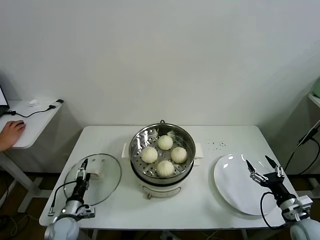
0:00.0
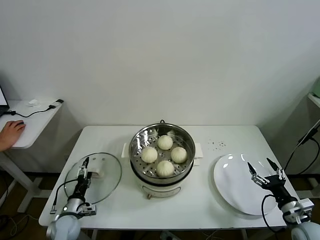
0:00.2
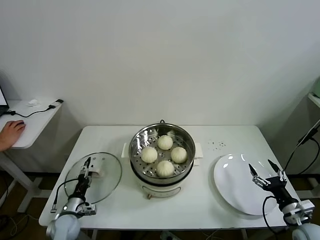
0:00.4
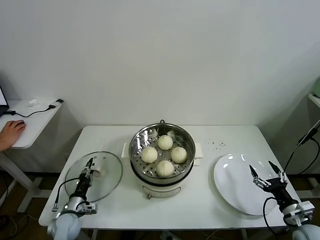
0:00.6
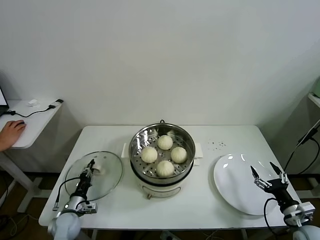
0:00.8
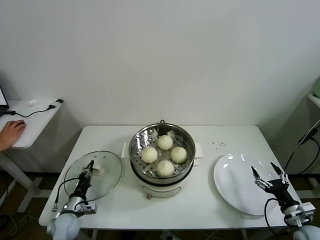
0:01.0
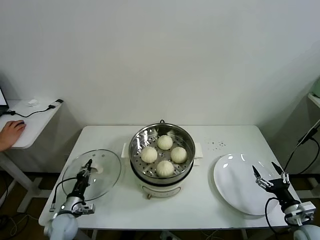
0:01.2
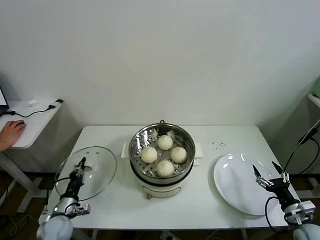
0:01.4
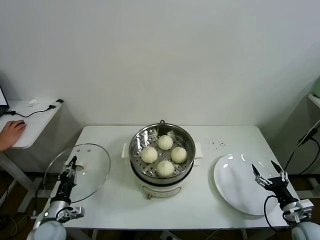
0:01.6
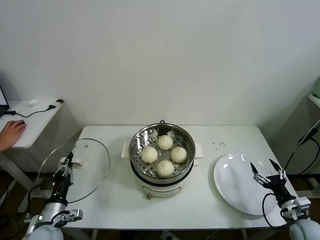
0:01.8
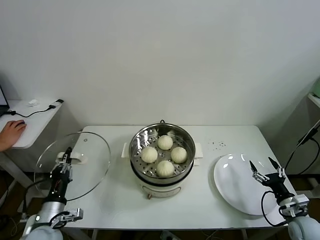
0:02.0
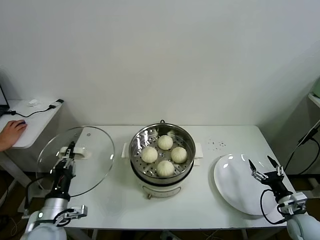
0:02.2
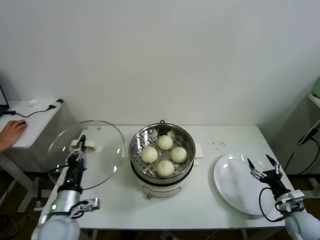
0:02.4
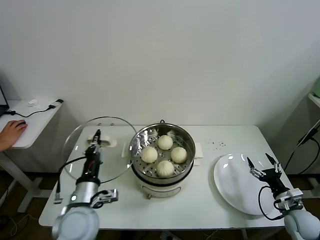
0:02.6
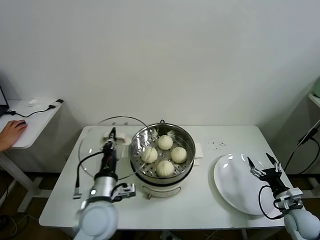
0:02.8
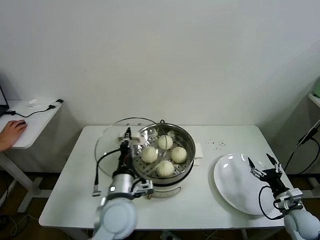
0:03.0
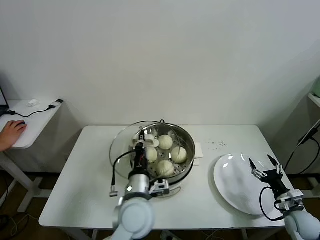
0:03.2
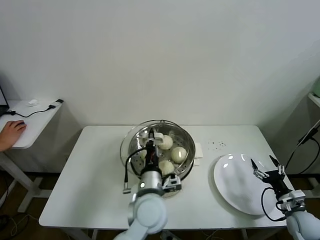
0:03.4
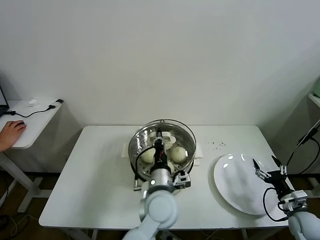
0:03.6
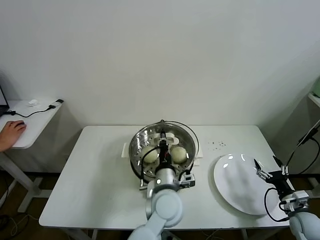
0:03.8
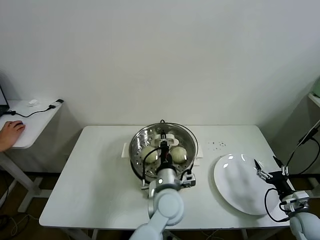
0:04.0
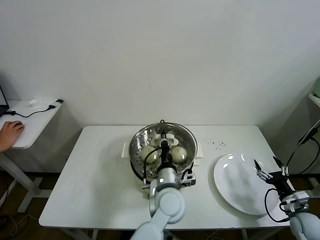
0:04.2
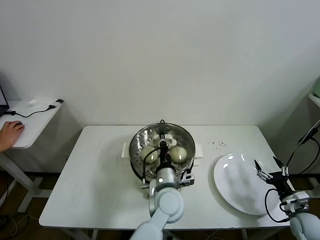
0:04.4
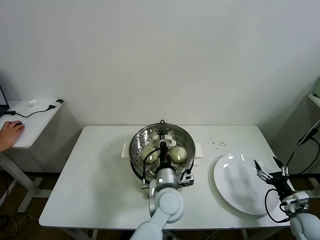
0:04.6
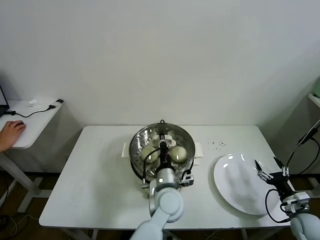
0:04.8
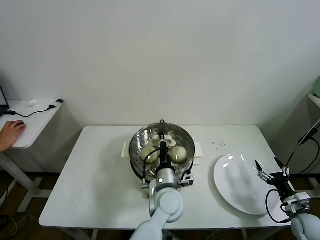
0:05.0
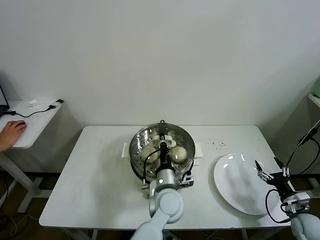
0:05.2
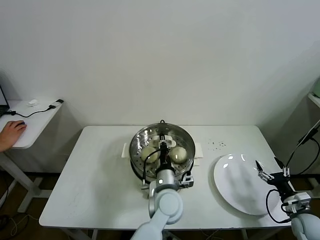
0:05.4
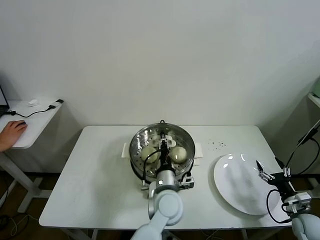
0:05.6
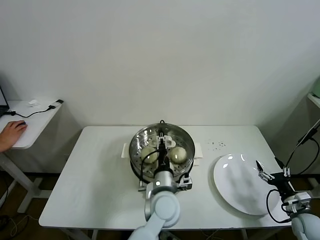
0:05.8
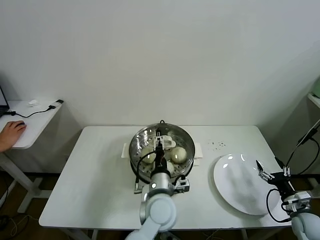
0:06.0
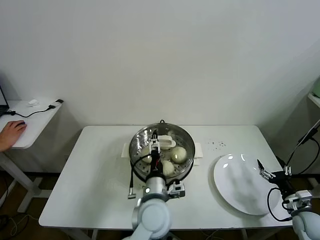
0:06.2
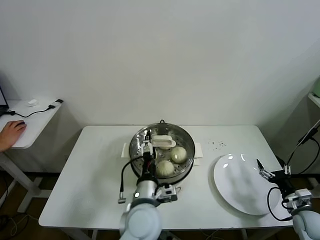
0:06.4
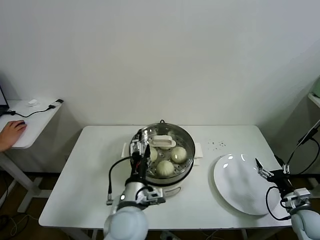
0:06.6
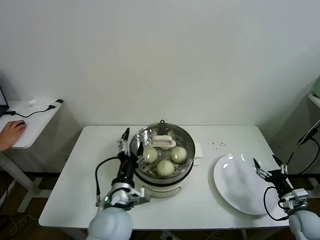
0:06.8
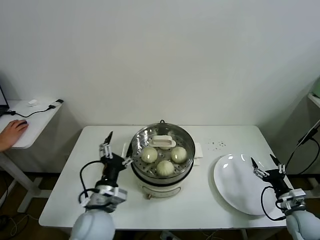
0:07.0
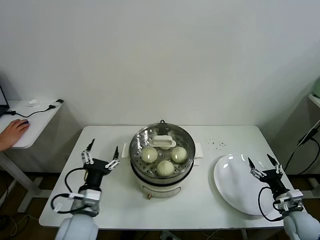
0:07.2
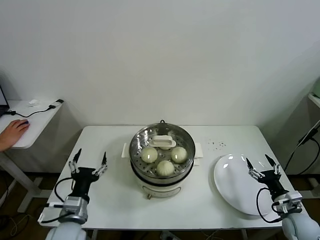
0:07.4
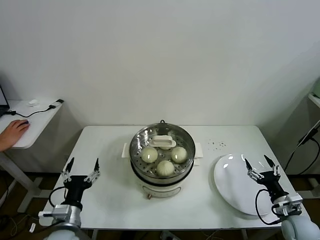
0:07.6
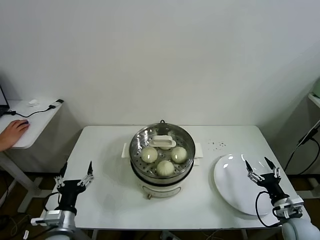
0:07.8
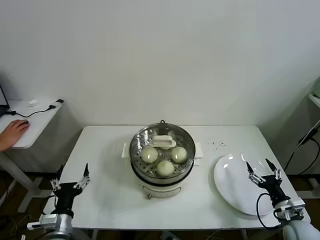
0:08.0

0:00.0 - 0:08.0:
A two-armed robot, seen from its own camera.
Task of the whole recording: take steamed baozi put them in steamer.
Step, 0:01.2 - 0:06.2: Place the pot lid on the steamer with left gripper.
0:00.0 - 0:01.6: The left gripper moves upward, about 5 cm, and closes its fingers.
0:01.6 - 0:03.2: The left gripper heads to the right and upward, covering approximately 30 cm.
0:03.2 - 0:04.8: The left gripper goes some 10 cm to the right and downward.
0:04.8 - 0:06.4: The left gripper heads to the left and backward, covering some 10 cm, and opens.
0:06.4 - 0:08.0: The left gripper goes about 25 cm to the left. The right gripper moves to the left, roughly 5 cm.

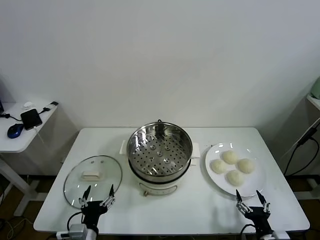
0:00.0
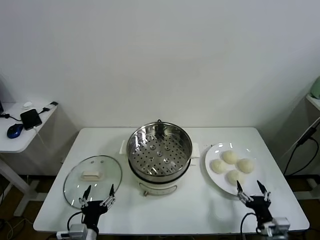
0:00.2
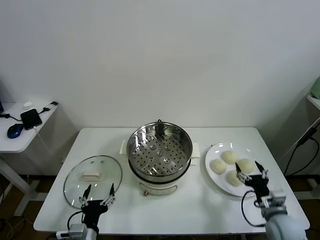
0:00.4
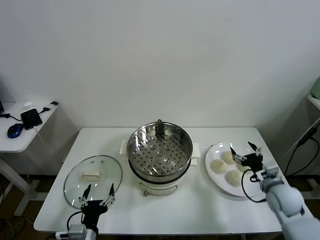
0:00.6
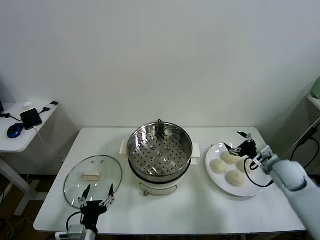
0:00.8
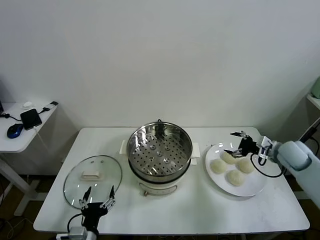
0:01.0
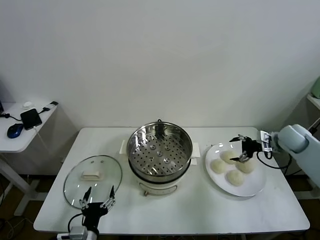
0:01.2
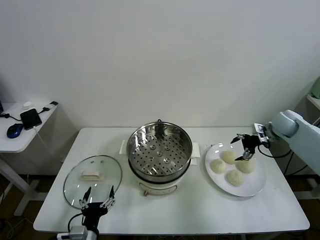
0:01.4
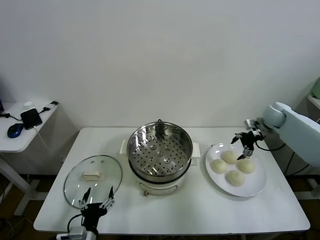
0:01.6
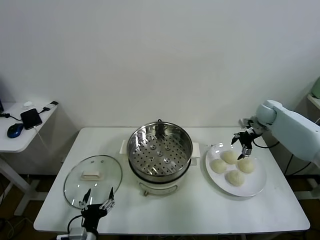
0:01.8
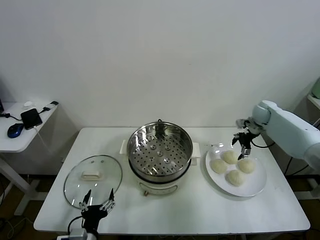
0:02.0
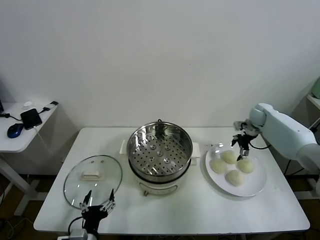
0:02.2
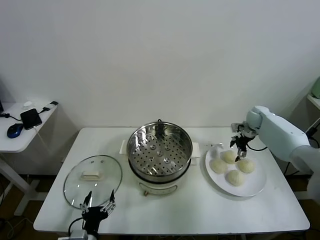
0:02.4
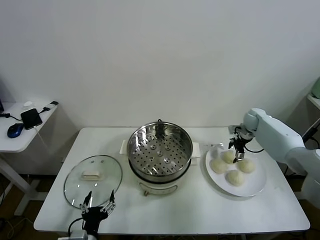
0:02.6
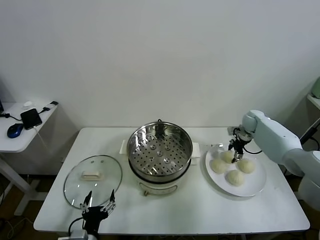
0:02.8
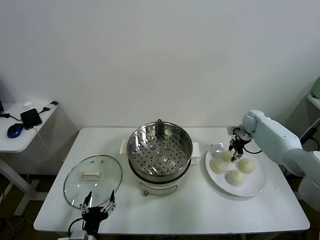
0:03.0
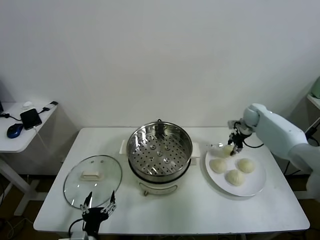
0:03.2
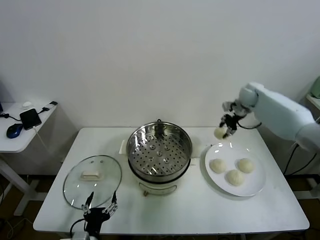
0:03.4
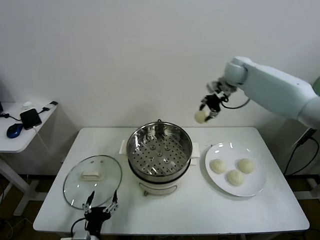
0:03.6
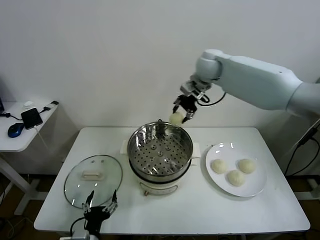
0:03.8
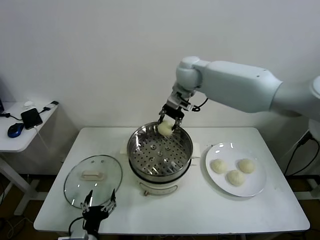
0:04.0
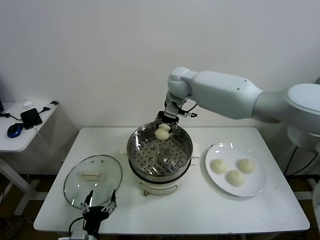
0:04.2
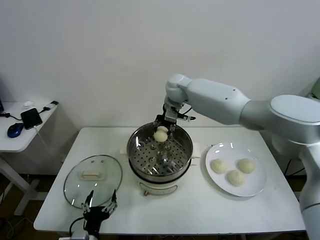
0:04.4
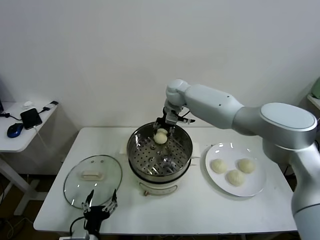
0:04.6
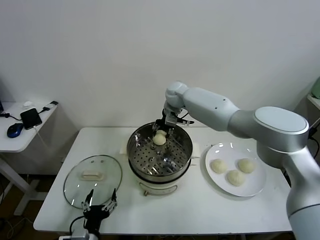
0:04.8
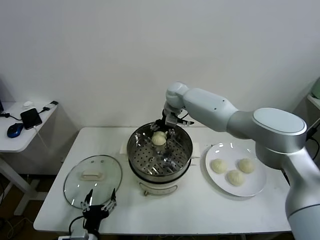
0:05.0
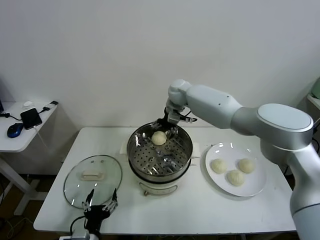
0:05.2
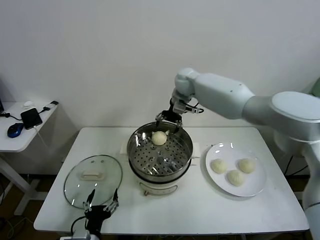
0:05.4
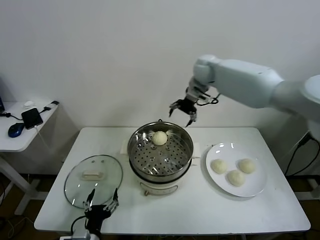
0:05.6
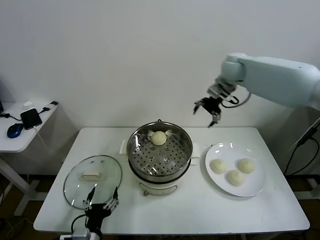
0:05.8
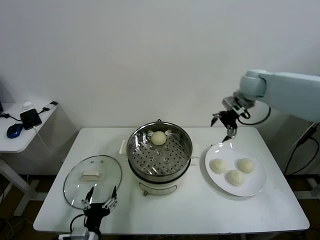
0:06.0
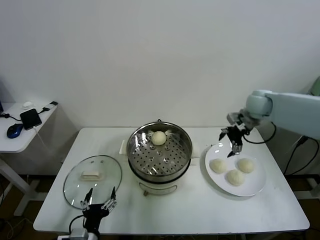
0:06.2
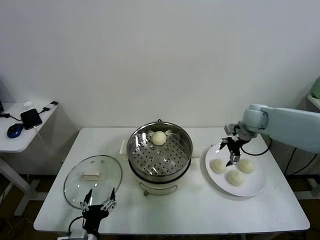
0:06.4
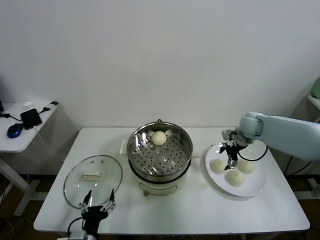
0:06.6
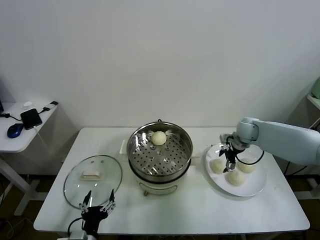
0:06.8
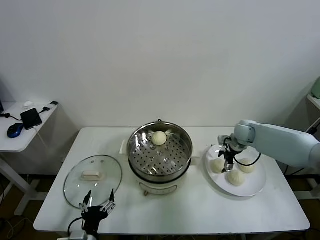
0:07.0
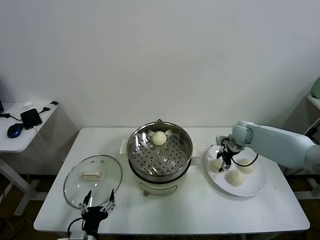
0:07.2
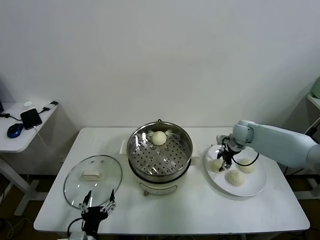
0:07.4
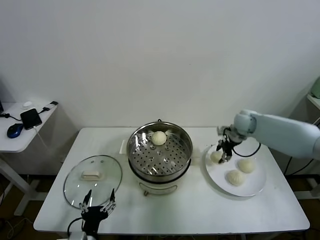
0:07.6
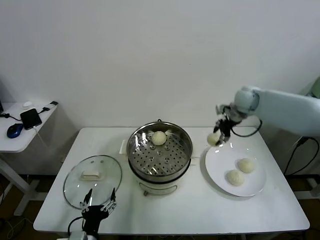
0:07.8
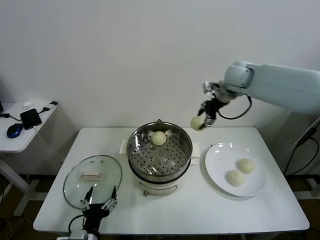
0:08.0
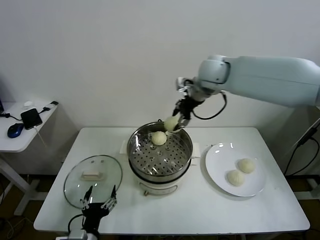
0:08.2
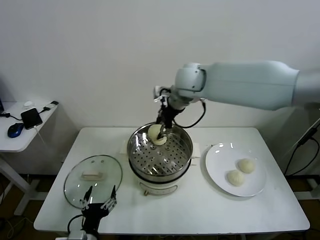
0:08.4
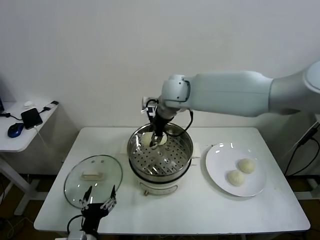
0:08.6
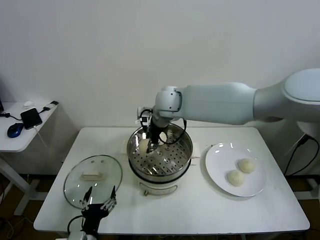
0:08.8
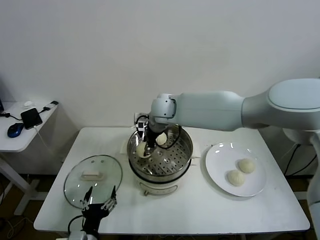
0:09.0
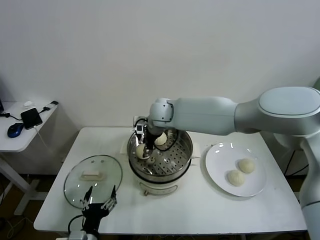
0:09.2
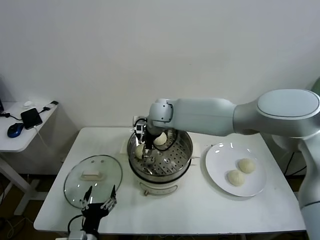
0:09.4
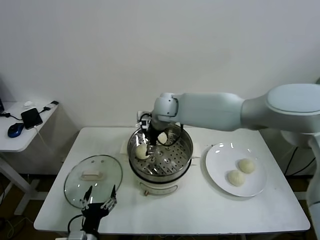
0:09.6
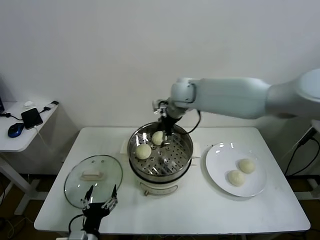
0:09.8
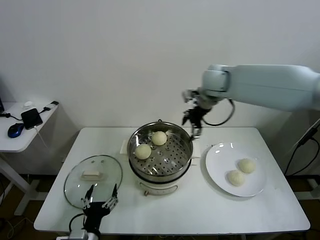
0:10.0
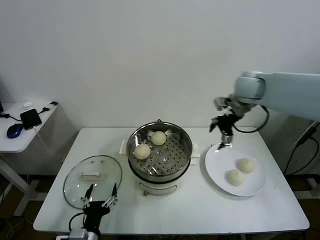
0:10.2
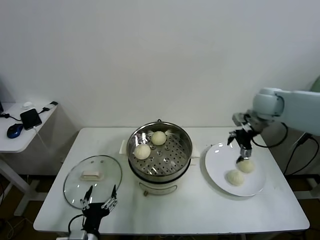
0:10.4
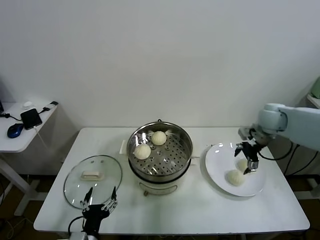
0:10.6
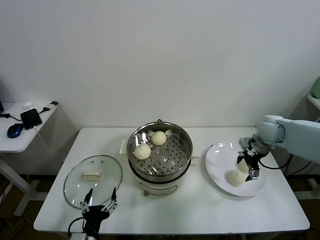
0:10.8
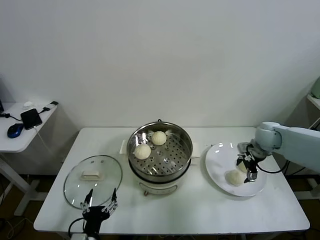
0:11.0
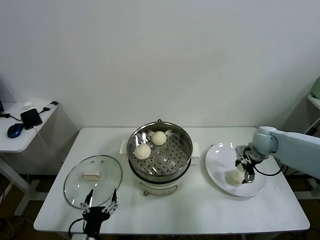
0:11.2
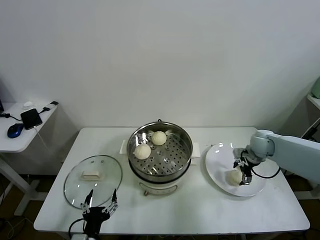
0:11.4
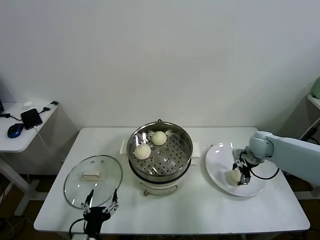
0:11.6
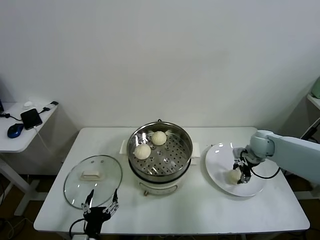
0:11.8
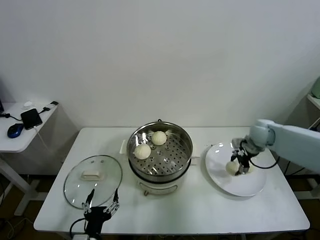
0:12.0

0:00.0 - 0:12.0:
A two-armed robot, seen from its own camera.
Task of the whole recording: take steamed baozi put them in steamer.
Step, 0:00.0 - 0:03.0: Grasp the baozi in the plate with right gripper.
Step, 0:03.2 - 0:05.0: Place the baozi on the steamer with right gripper.
Step, 0:05.2 - 0:07.2: Grasp the baozi in the plate with right gripper.
Step, 0:07.4 - 0:09.4: Place the baozi on the steamer with right gripper.
Step, 0:09.8 - 0:11.6: Grasp the baozi in the plate with right gripper.
0:01.6 - 0:03.0: The right gripper travels downward by roughly 5 cm, and closes up.
0:03.0 - 0:04.4: The right gripper goes approximately 35 cm to the left and upward.
0:04.4 - 0:06.0: The right gripper heads to the right, covering some 25 cm, and opens its fingers.
0:06.0 - 0:07.6: The right gripper is displaced downward by about 10 cm, and closes up.
0:07.6 - 0:09.0: The right gripper is displaced to the left by about 30 cm.
0:09.0 - 0:10.4: The right gripper shifts approximately 35 cm to the right, and opens its fingers.
0:10.4 - 0:12.0: The right gripper moves downward, about 10 cm, and closes.

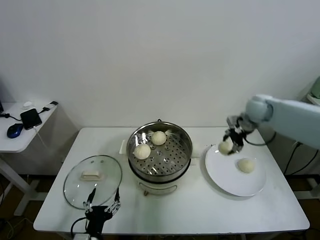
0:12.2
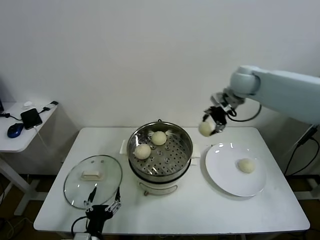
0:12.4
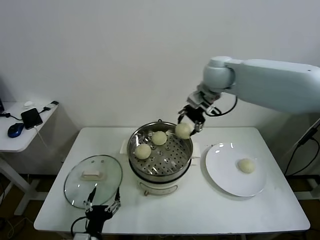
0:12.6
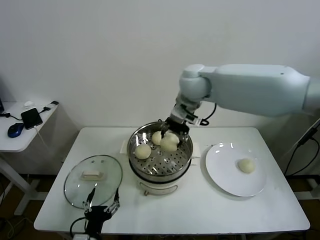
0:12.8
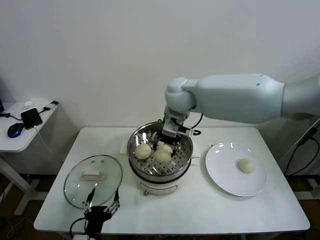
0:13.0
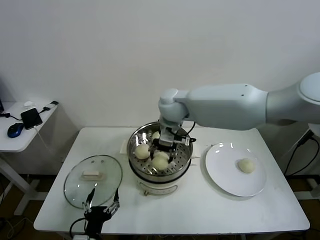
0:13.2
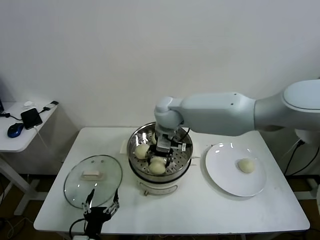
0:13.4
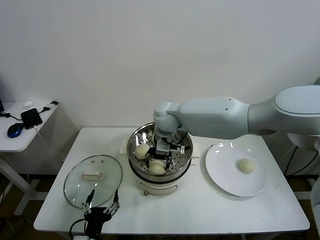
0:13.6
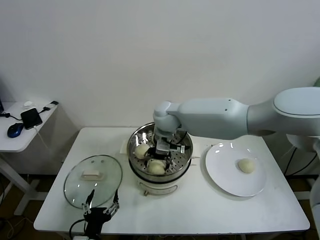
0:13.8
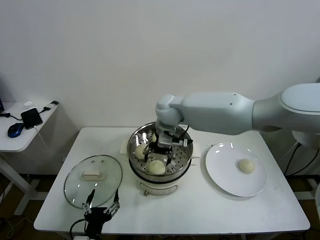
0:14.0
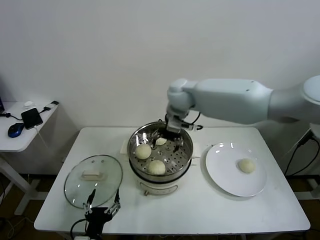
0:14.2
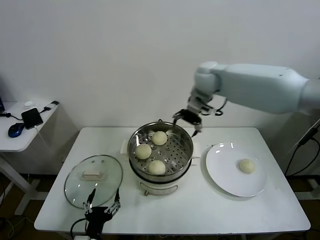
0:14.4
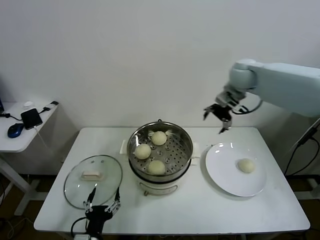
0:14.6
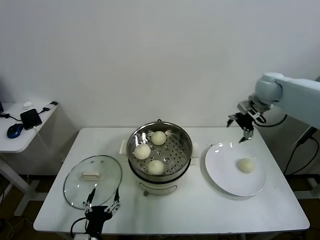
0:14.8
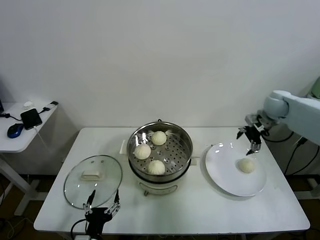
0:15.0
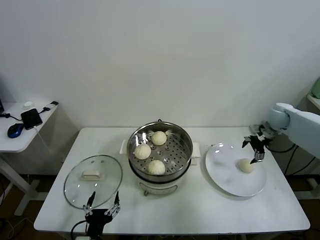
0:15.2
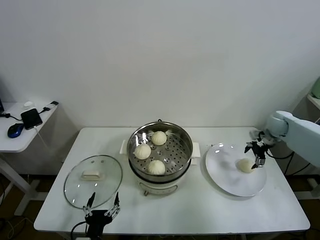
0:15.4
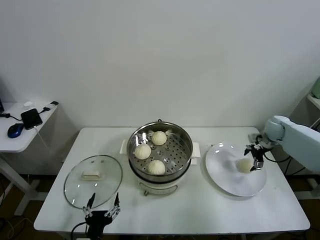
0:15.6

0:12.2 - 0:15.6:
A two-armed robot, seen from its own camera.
Task of the whole recording: take steamed baozi put them in steamer.
Step, 0:12.2 - 0:13.8: Place the baozi on the steamer with right gripper.
0:12.2 - 0:13.8: The right gripper shifts roughly 30 cm to the left, and opens up.
0:13.8 - 0:15.6: The right gripper is displaced to the right by approximately 40 cm.
